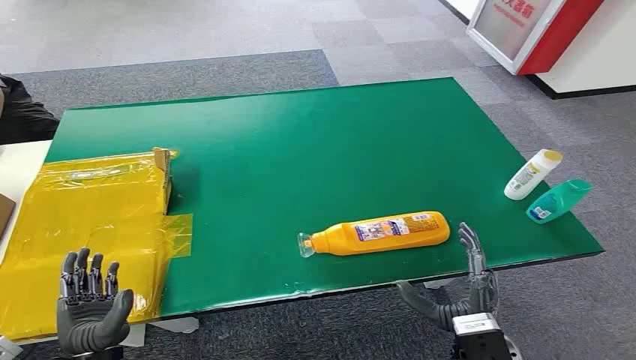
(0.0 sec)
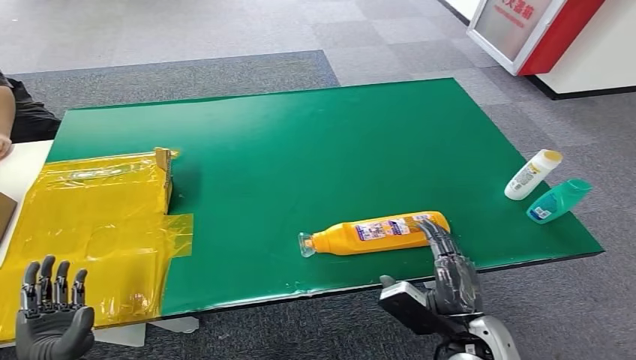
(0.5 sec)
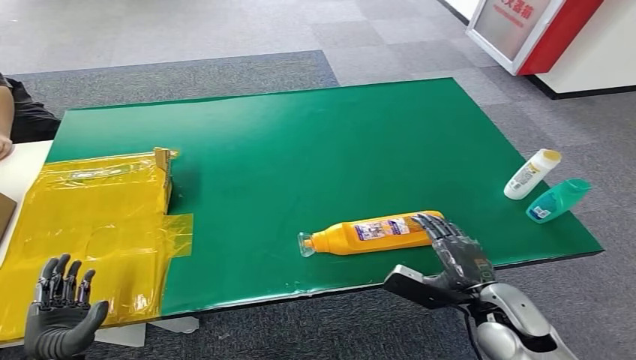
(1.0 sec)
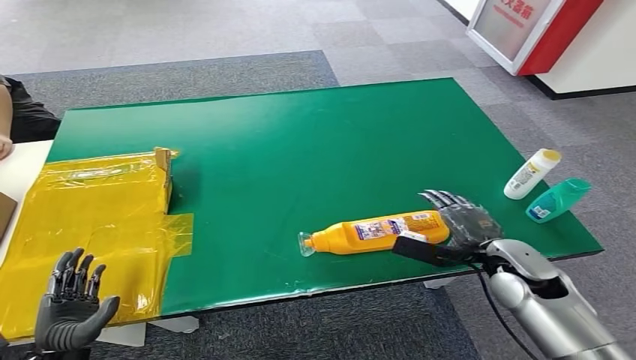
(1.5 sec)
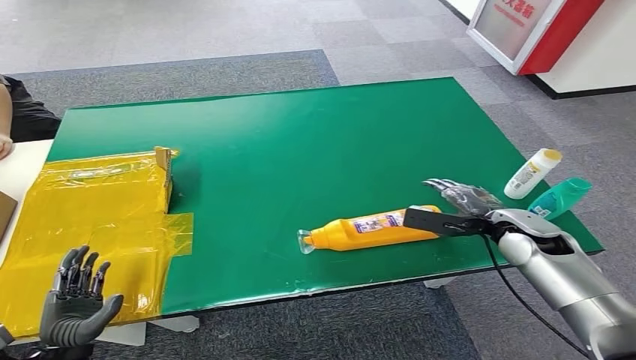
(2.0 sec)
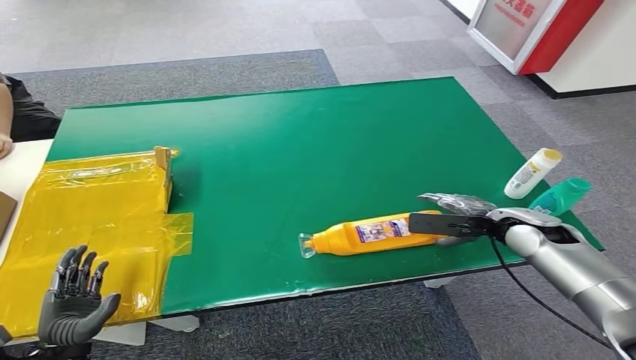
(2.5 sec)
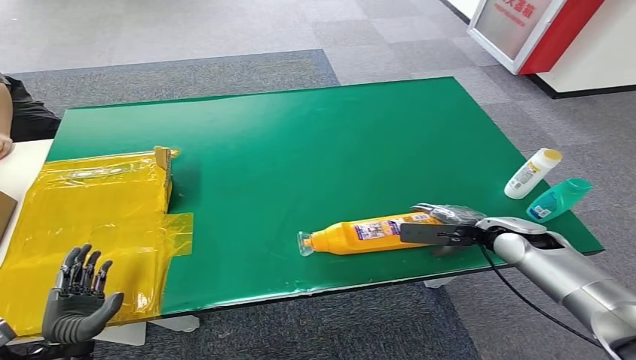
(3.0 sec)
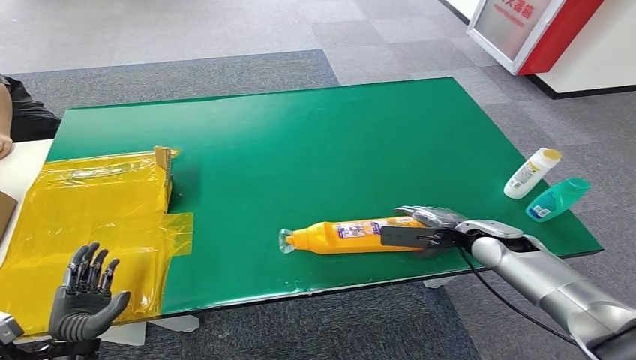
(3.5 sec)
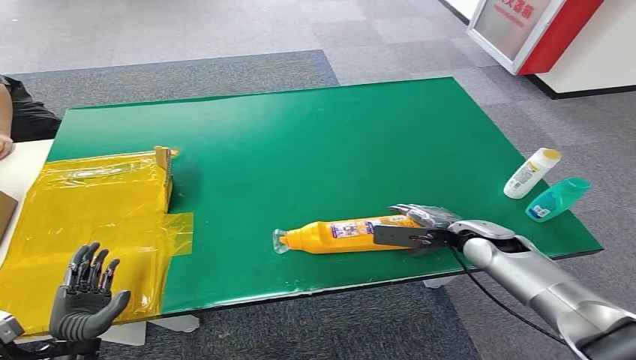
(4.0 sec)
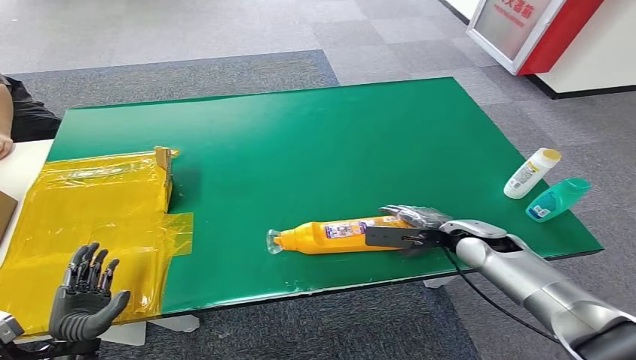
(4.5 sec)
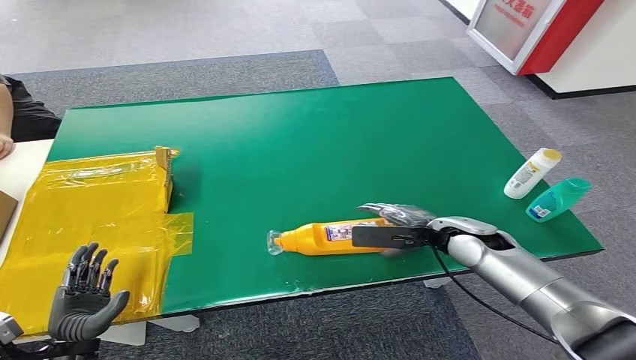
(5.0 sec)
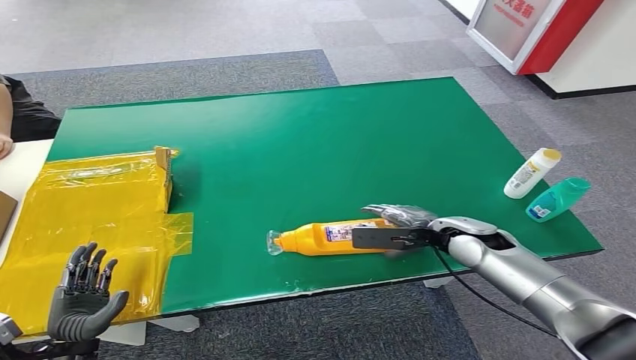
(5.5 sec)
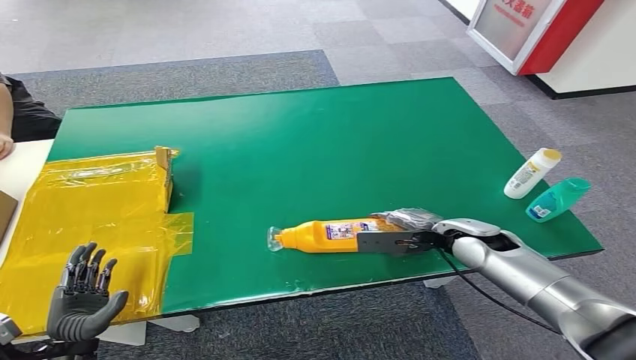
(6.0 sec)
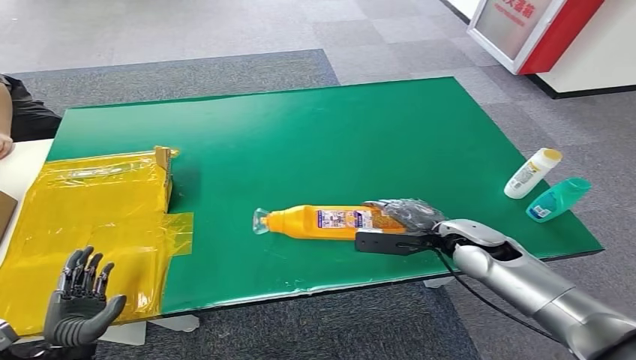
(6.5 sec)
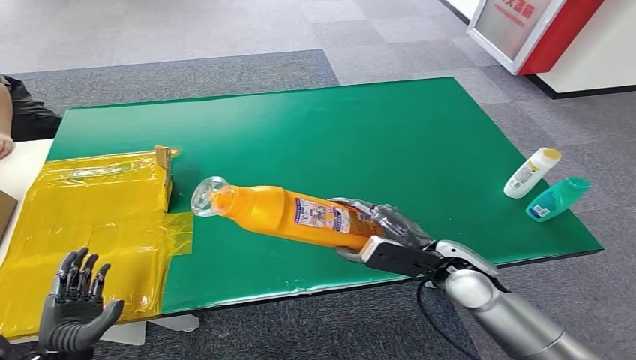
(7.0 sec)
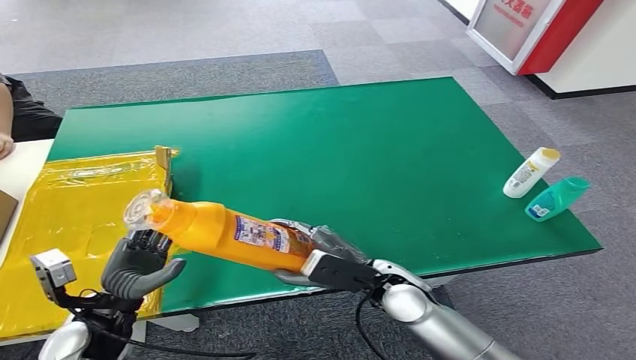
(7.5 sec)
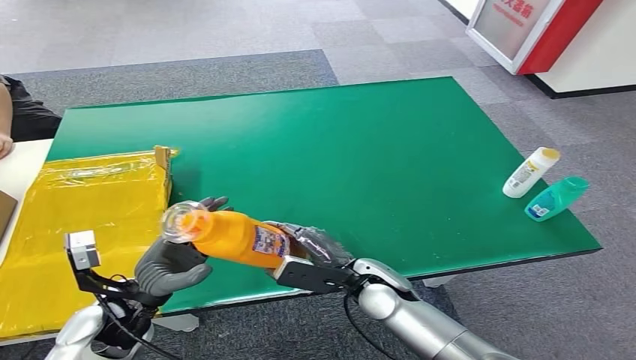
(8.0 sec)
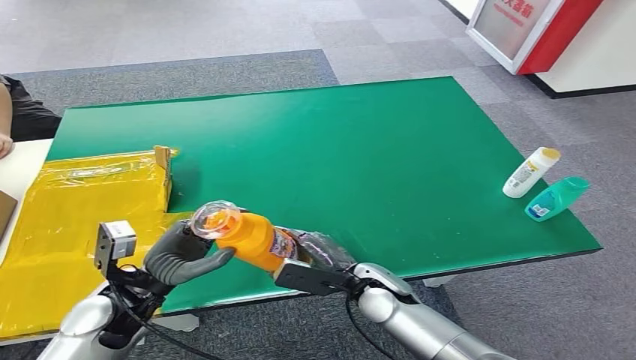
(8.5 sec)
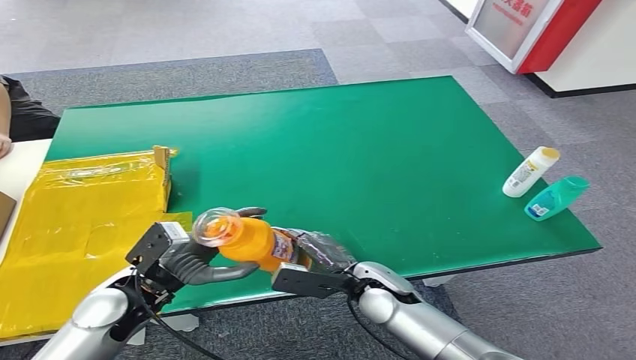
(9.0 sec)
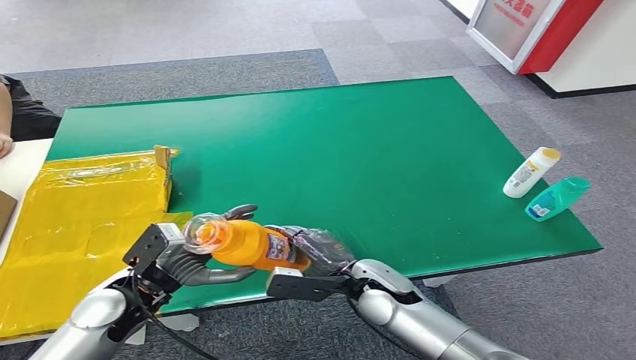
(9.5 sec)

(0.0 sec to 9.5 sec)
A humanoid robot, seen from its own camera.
Step, 0.0 sec - 7.0 sec: Pick up the bottle from the table.
2.0 sec - 4.0 sec: The right hand ends up about 5 cm from where it was.
4.0 sec - 5.5 sec: The hands move only a little.
5.5 sec - 7.5 sec: The right hand moves to the left and backward, about 15 cm; the left hand is displaced upward, forward and to the right by roughly 10 cm.
7.5 sec - 9.5 sec: The left hand ends up about 5 cm from where it was.

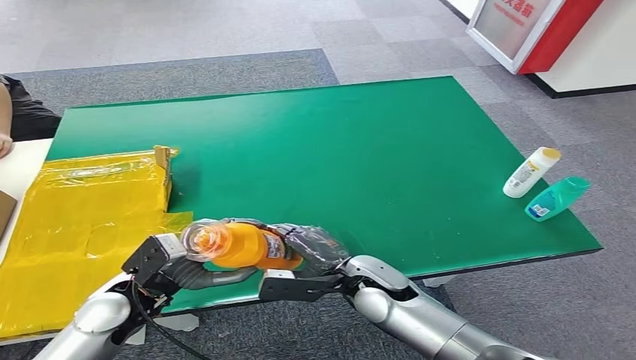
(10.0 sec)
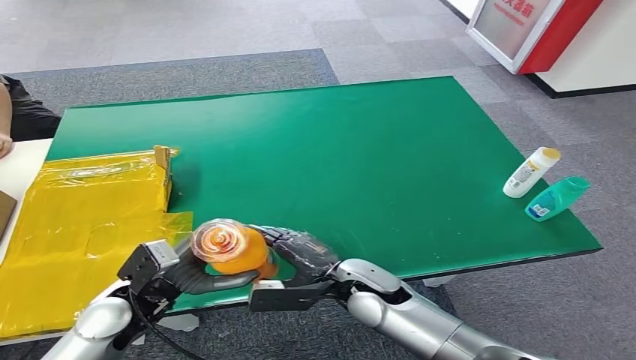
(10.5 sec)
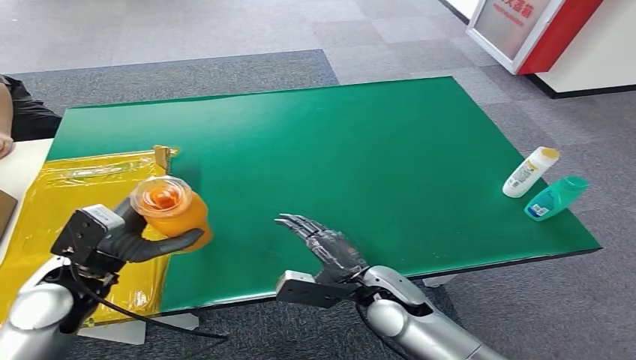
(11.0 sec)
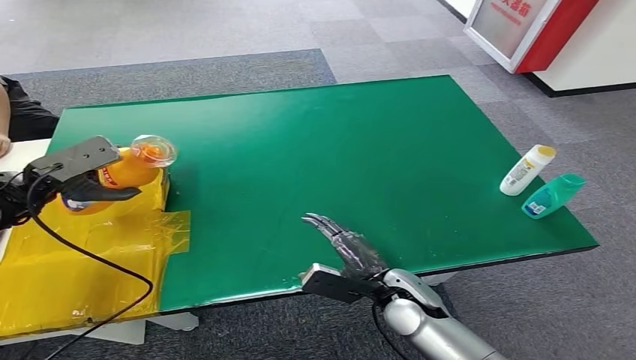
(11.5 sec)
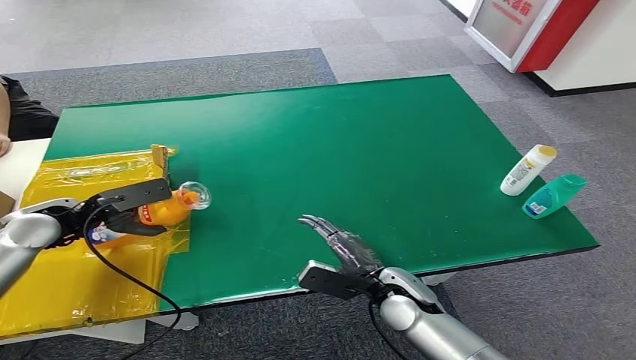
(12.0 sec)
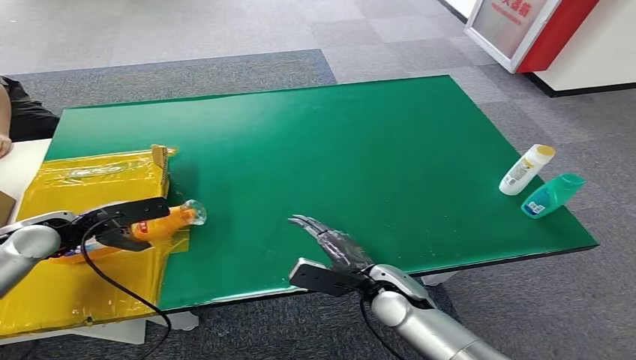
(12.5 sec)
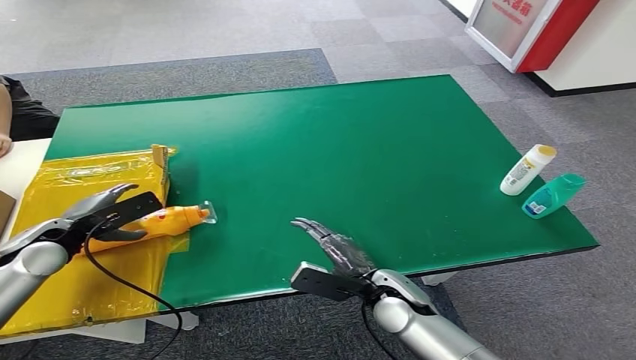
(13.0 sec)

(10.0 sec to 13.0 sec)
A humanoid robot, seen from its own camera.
Step, 10.0 sec - 13.0 sec: Turn the bottle to the front side.
11.5 sec - 13.0 sec: The left hand travels downward by approximately 10 cm.
